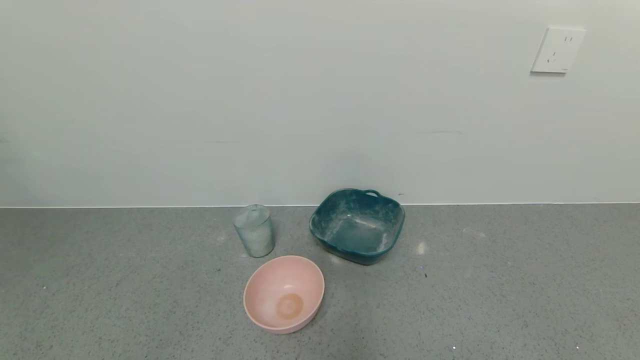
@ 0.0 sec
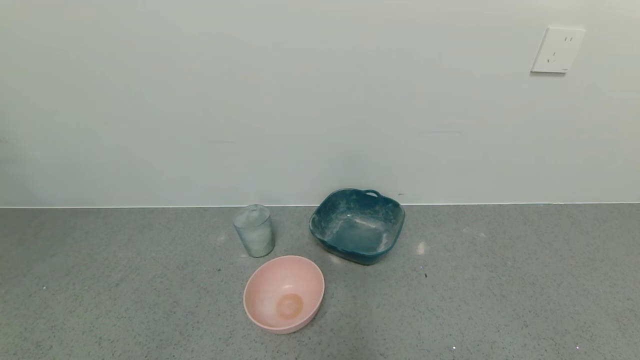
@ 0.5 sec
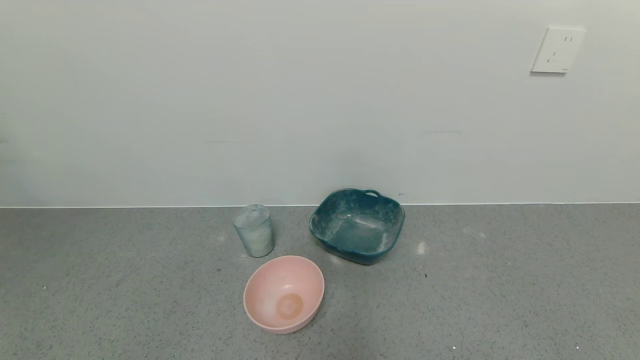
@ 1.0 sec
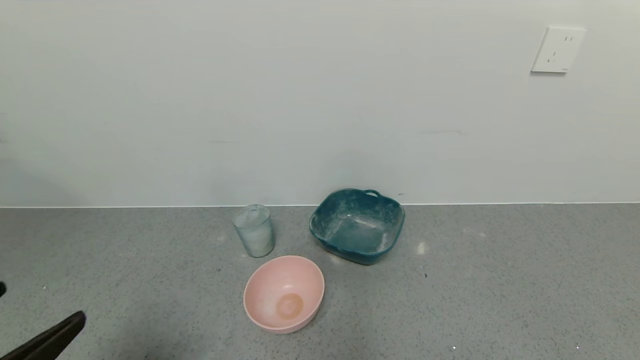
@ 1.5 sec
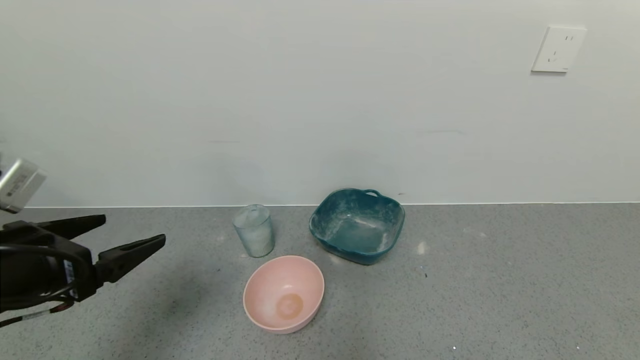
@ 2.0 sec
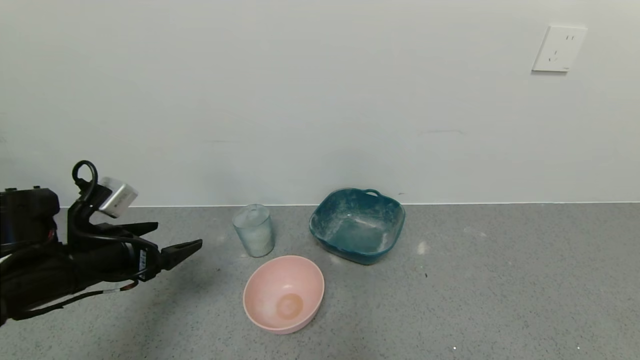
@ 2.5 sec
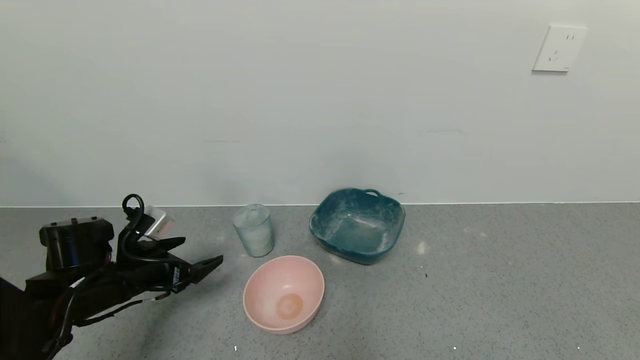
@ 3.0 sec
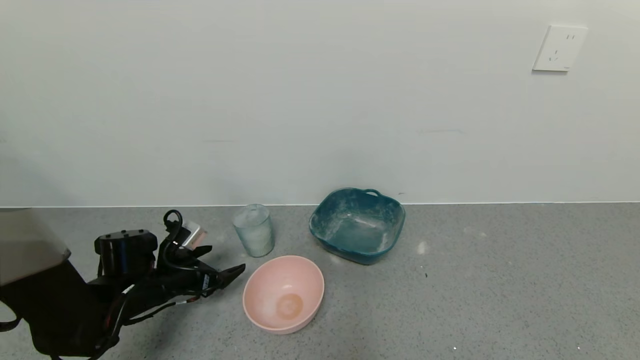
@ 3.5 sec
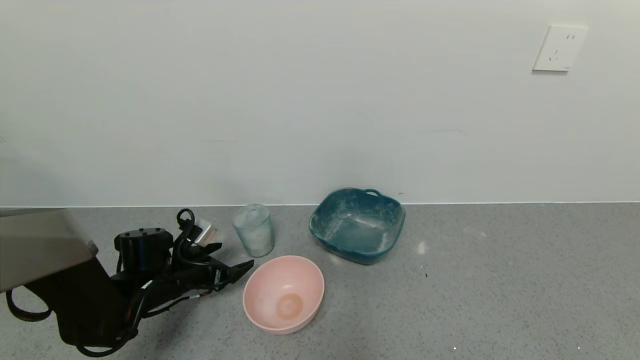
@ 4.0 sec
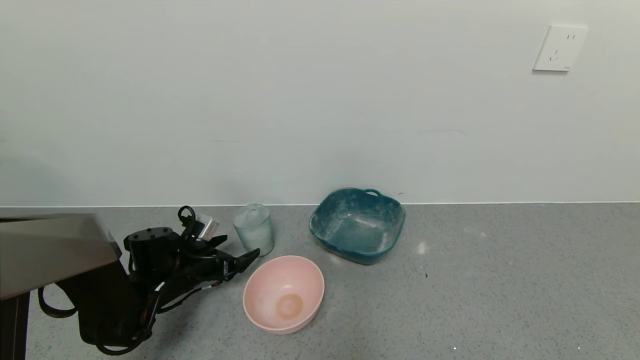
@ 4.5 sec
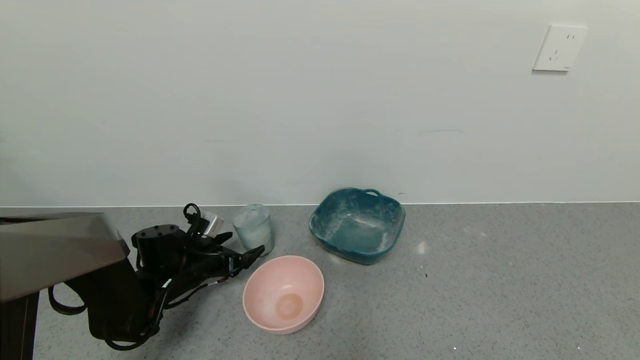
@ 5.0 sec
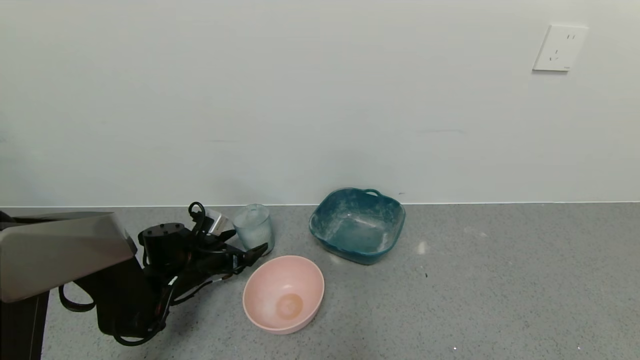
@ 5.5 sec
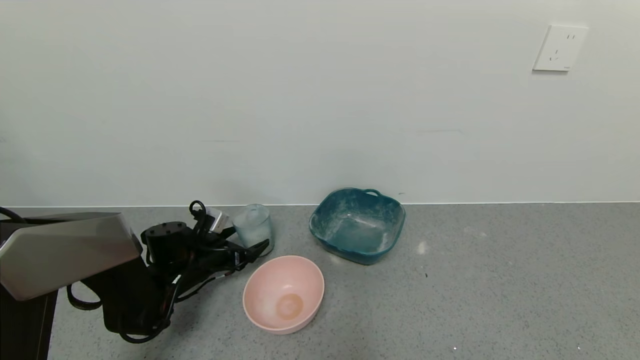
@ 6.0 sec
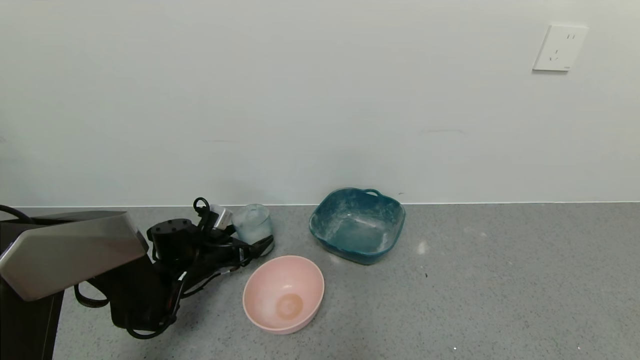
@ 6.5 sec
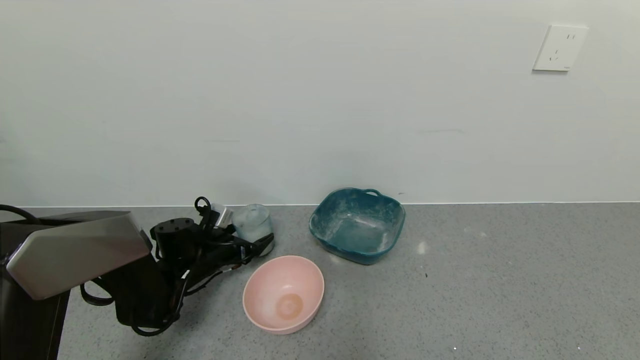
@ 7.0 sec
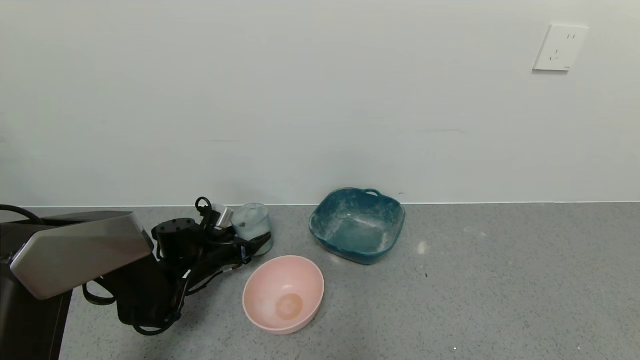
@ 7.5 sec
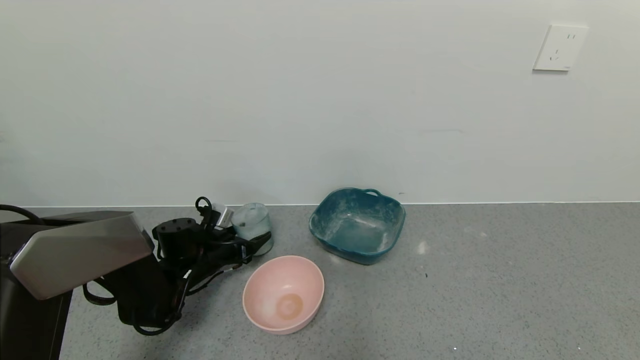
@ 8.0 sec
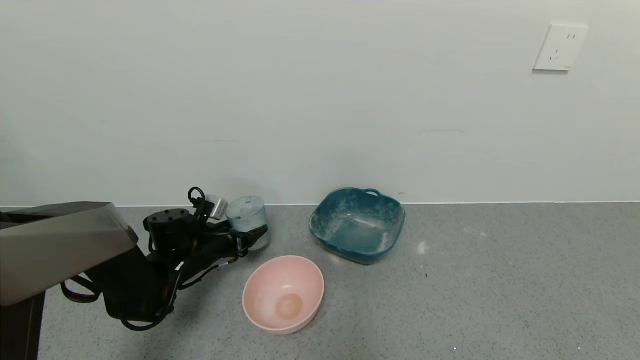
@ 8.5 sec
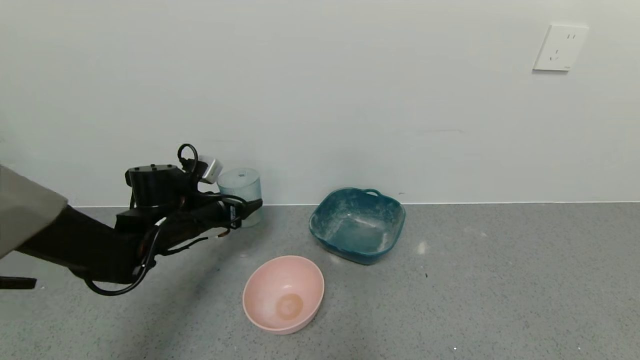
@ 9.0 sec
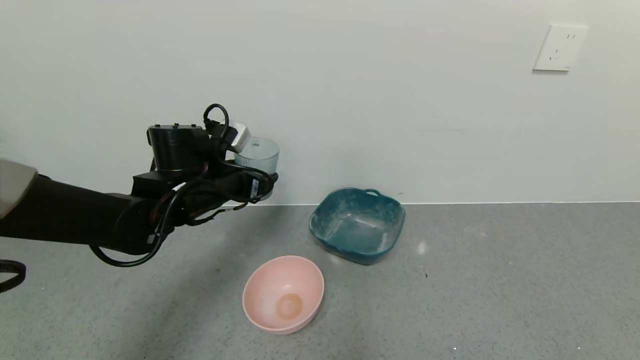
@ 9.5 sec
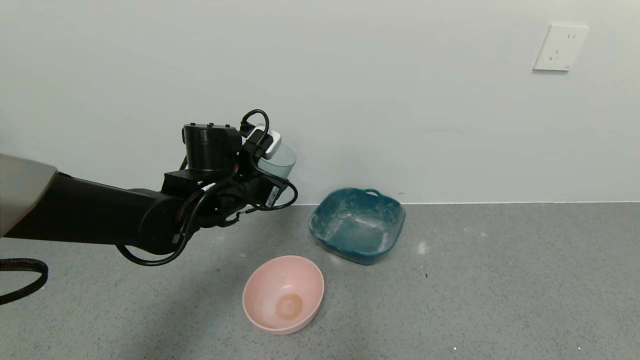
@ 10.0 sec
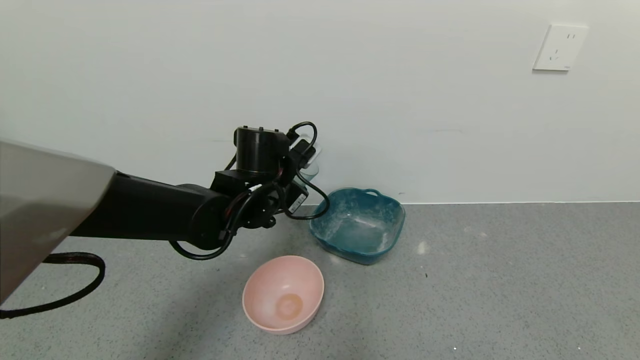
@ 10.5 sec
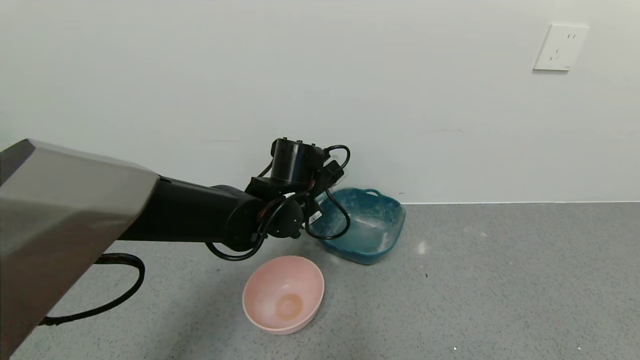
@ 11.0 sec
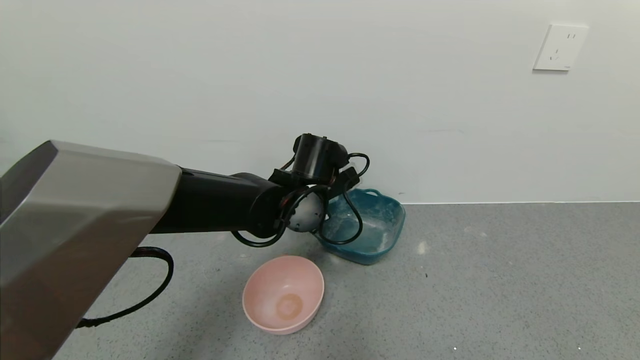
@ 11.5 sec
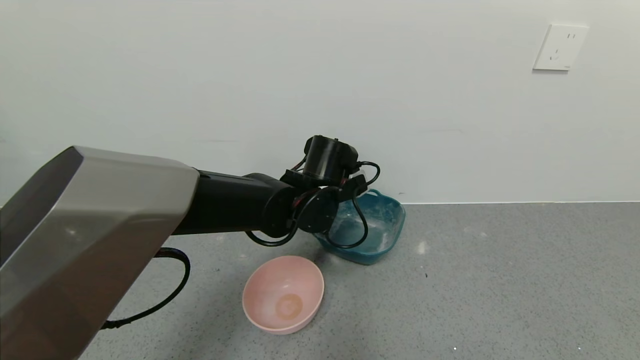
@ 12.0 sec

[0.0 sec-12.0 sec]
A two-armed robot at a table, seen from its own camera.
Task of the whole recording: use a gripper to pick up the cup and pour the powder into a bowl or tray.
Step, 0.0 sec to 7.5 sec: Pick up blue cup filled with coffee powder with left gripper.
0.0 sec to 2.0 sec: The left gripper moves forward and upward, roughly 25 cm.
2.0 sec to 4.0 sec: The left gripper heads downward and forward, covering approximately 25 cm.
4.0 sec to 6.0 sec: The grippers make only small movements.
6.0 sec to 8.0 sec: The left gripper closes.
8.0 sec to 10.0 sec: The left gripper travels upward and to the right by about 20 cm.
10.0 sec to 12.0 sec: The left gripper moves to the right, about 10 cm.

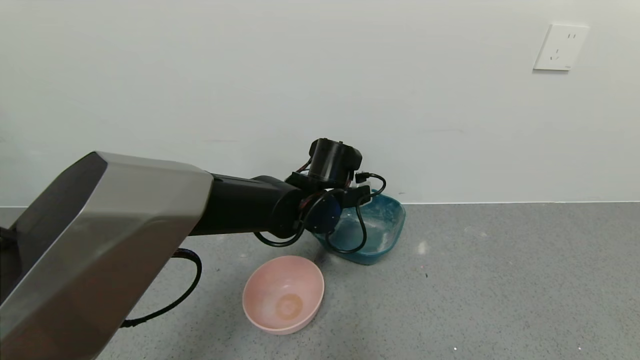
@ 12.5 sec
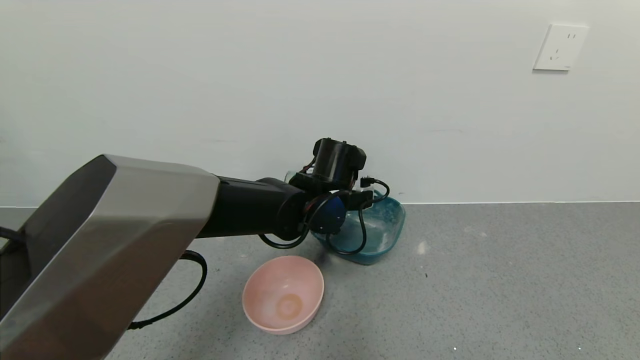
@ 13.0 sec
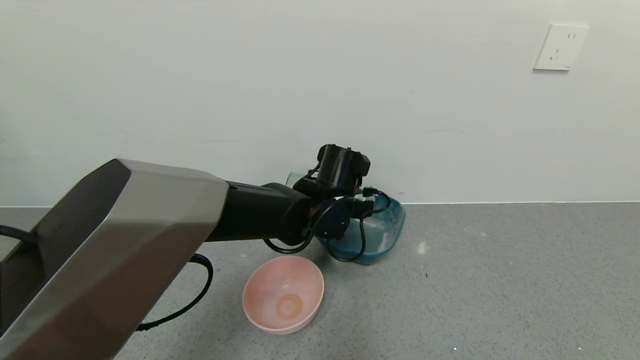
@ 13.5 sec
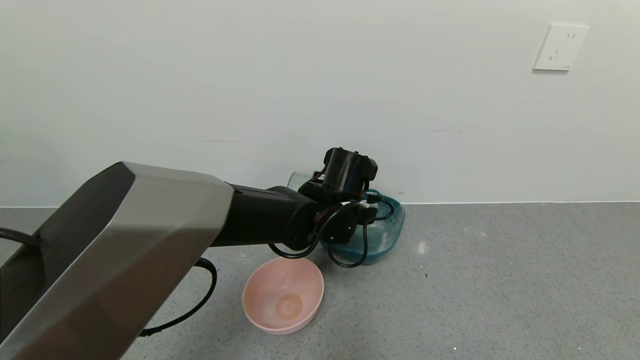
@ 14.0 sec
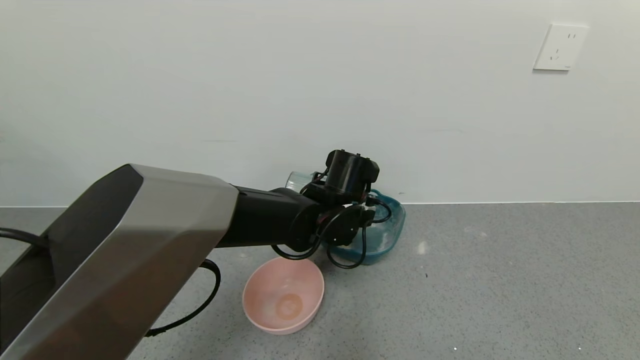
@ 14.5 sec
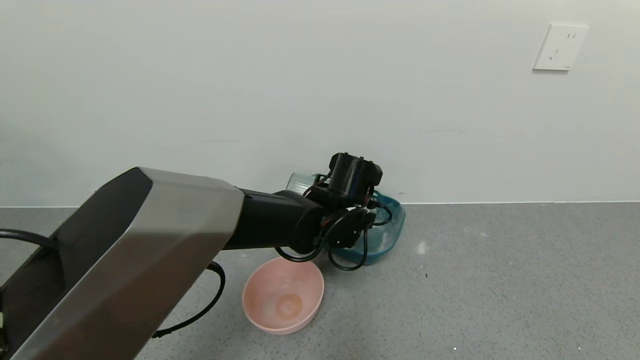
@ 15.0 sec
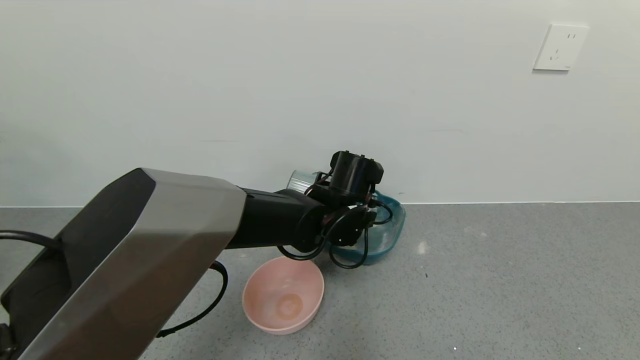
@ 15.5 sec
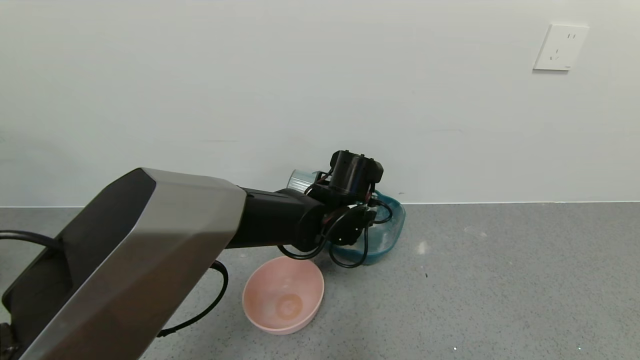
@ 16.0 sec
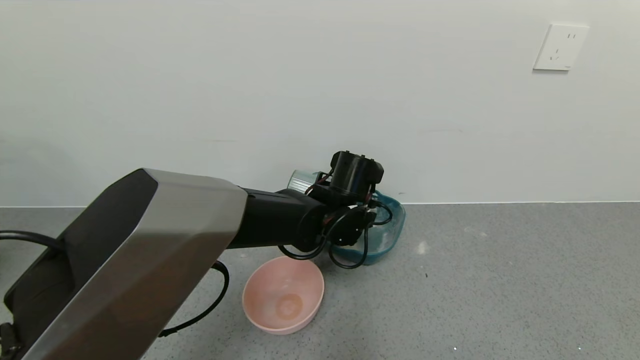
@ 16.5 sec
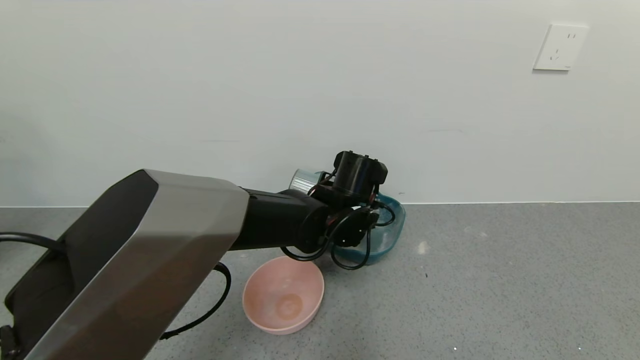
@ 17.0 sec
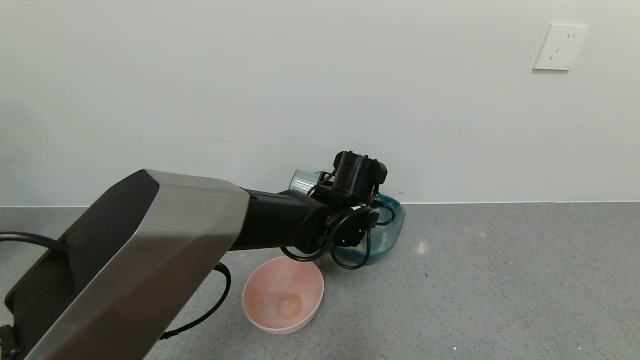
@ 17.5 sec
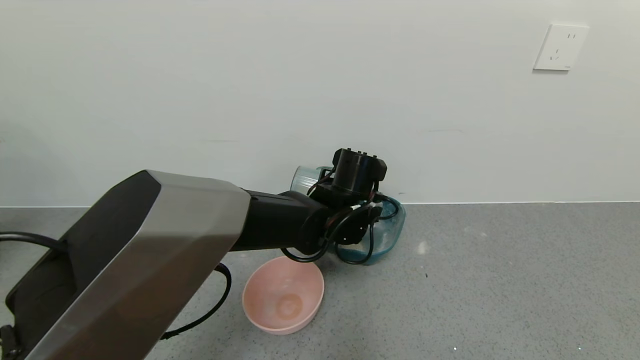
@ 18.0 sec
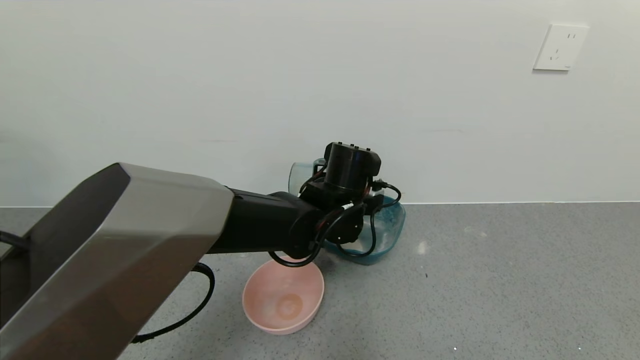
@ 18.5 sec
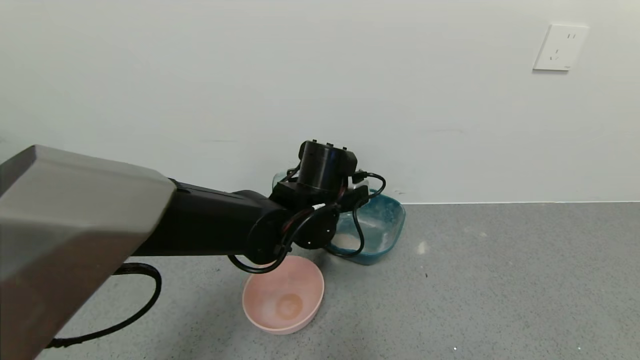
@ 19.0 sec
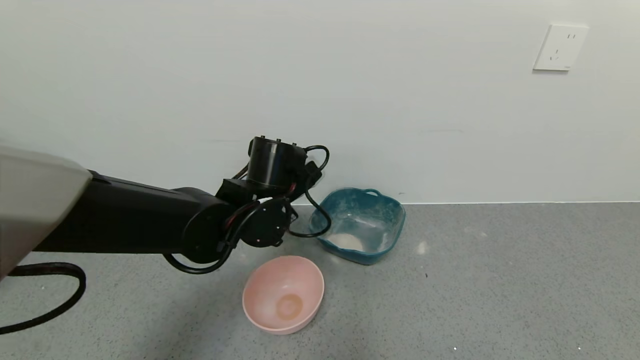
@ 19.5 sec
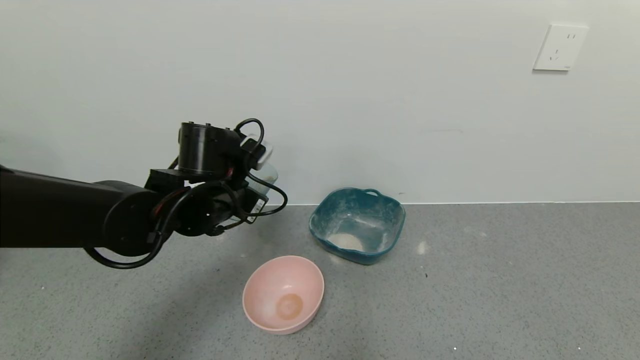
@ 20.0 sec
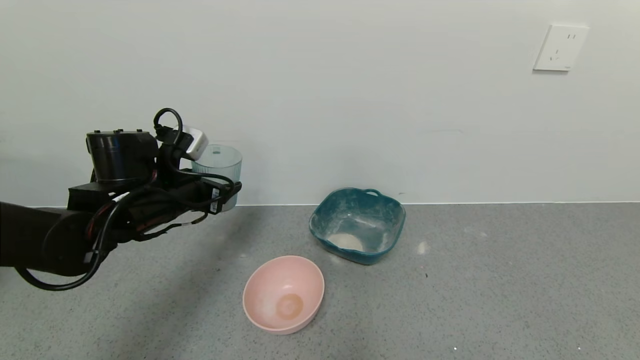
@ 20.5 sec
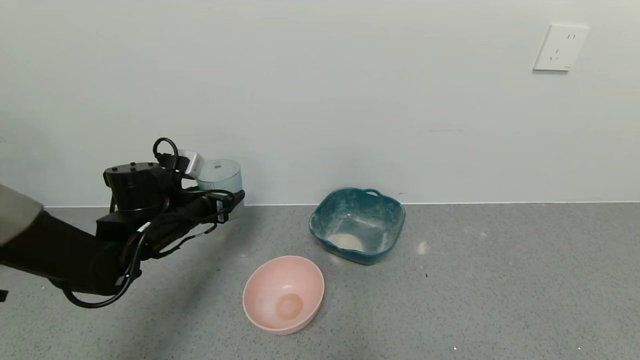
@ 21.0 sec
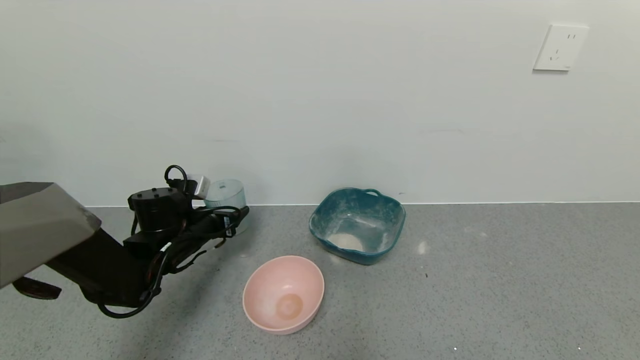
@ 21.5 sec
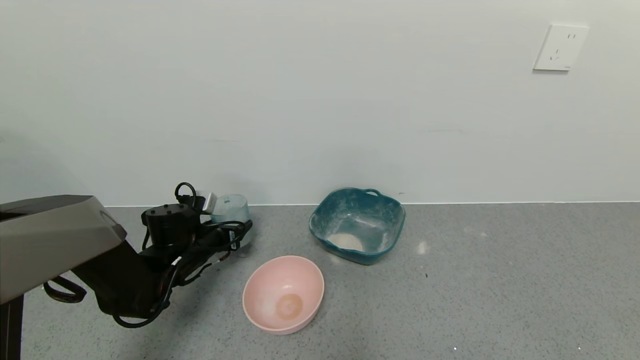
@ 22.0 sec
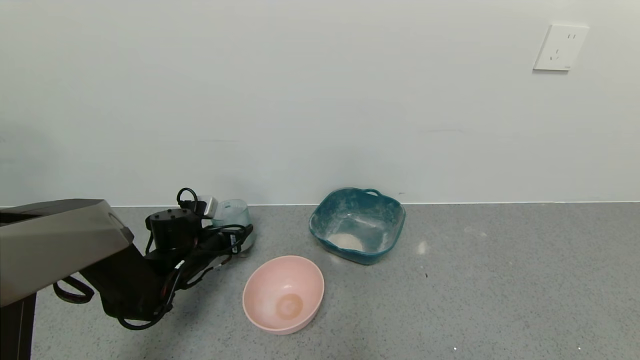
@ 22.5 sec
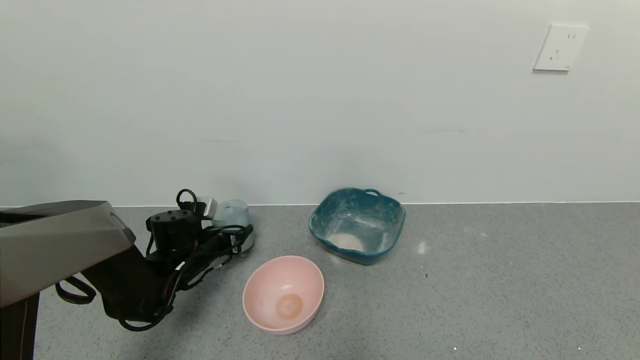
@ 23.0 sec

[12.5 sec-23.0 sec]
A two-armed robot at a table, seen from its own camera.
Task of the whole recording: use a gripper to pick up the cup and pour the powder into a bowl or tray.
Step, 12.5 sec to 18.0 sec: Pour the coffee powder into the blue basin with left gripper.
14.5 sec to 16.5 sec: Neither gripper changes place.
16.5 sec to 19.0 sec: The left gripper changes place by about 5 cm.
19.0 sec to 21.0 sec: The left gripper heads to the left, covering approximately 20 cm.
21.0 sec to 23.0 sec: The left gripper moves downward, approximately 10 cm.
